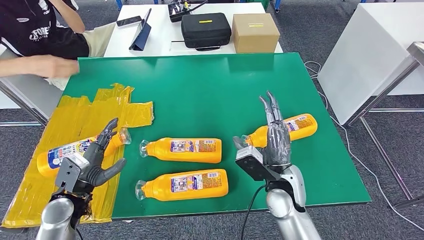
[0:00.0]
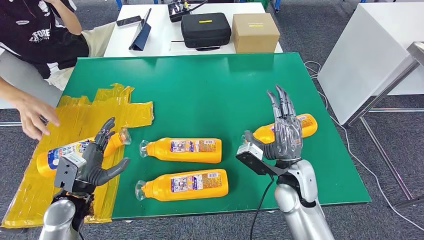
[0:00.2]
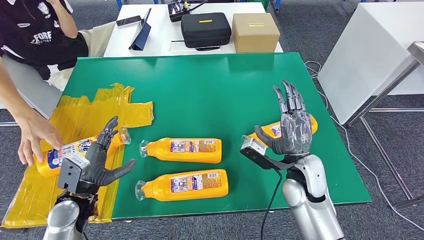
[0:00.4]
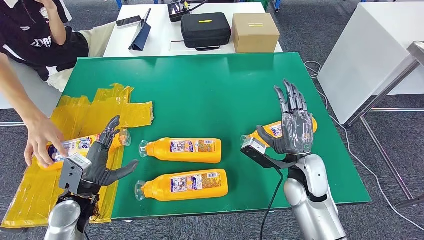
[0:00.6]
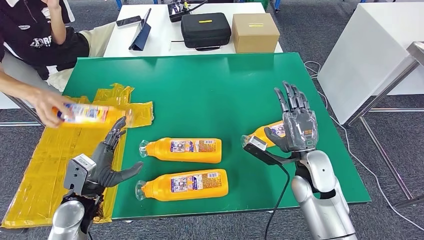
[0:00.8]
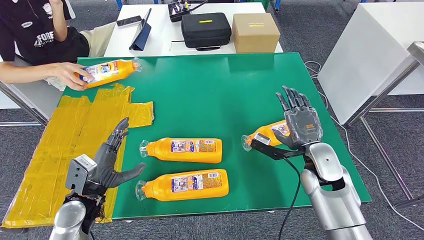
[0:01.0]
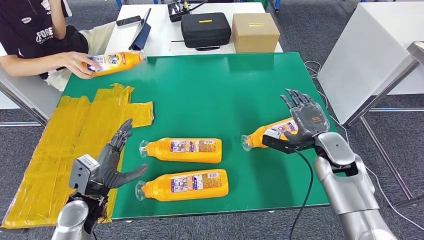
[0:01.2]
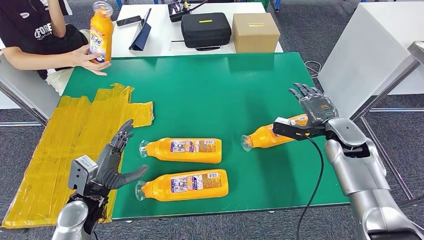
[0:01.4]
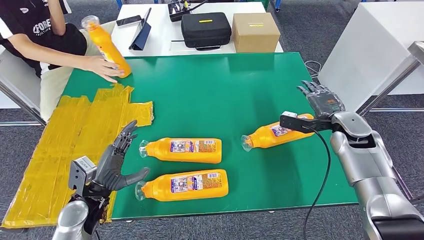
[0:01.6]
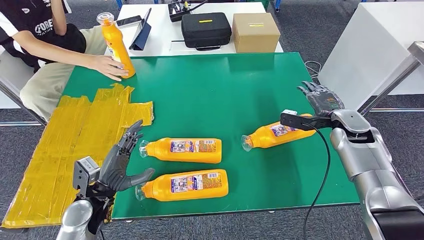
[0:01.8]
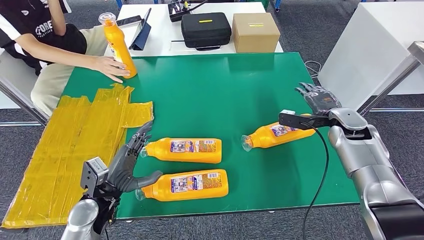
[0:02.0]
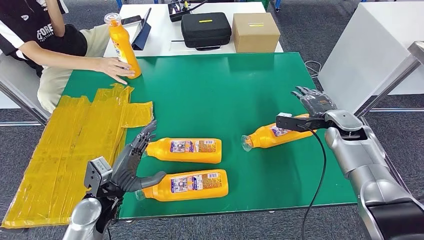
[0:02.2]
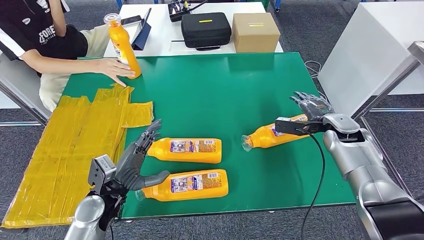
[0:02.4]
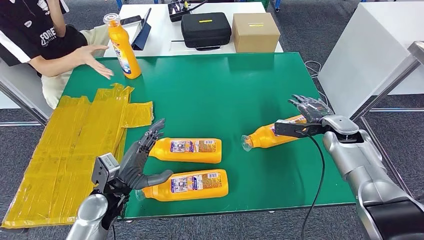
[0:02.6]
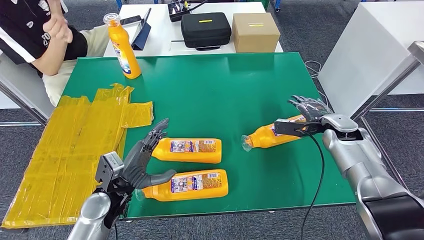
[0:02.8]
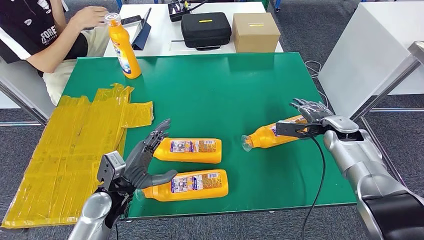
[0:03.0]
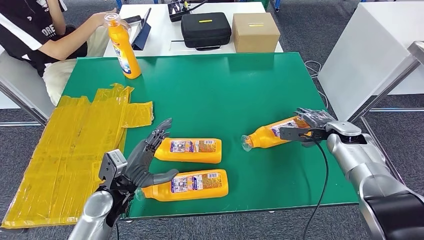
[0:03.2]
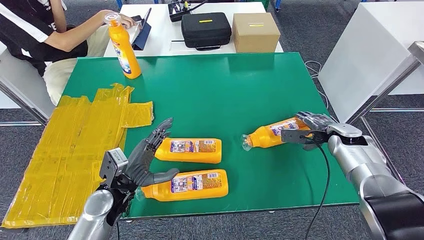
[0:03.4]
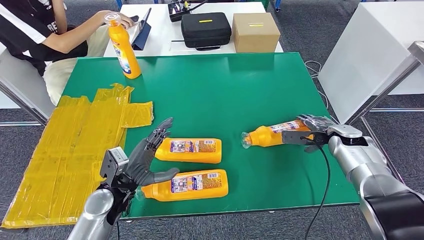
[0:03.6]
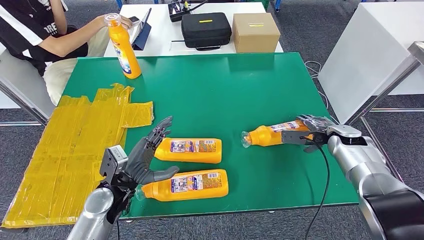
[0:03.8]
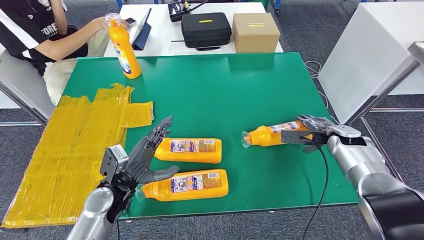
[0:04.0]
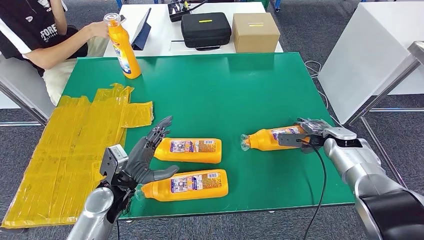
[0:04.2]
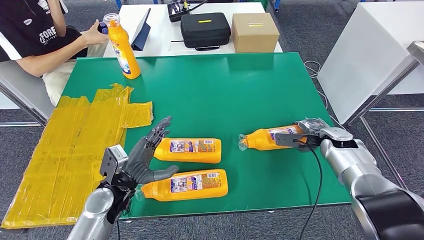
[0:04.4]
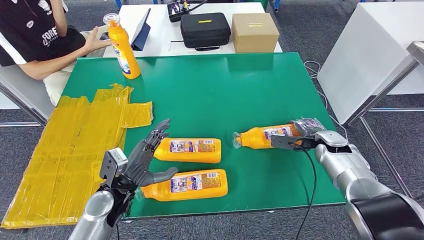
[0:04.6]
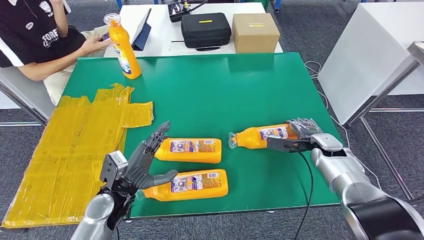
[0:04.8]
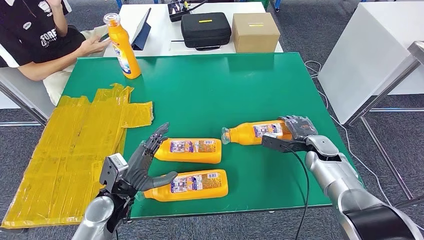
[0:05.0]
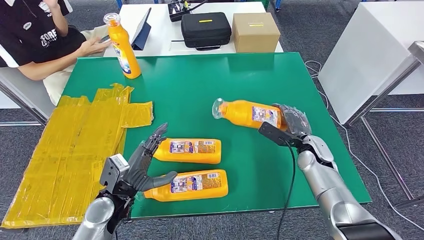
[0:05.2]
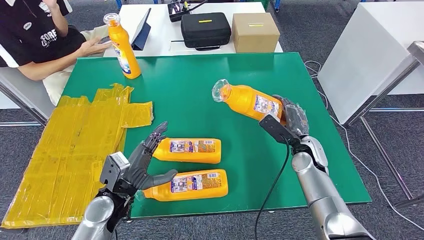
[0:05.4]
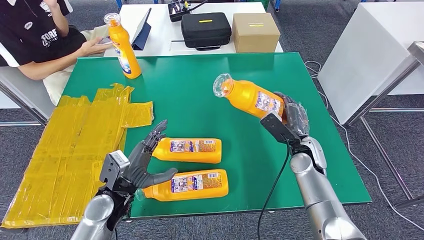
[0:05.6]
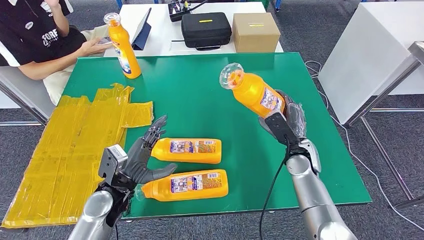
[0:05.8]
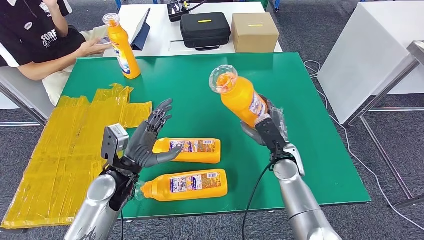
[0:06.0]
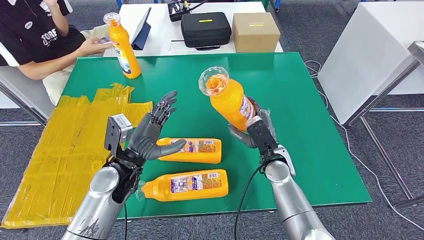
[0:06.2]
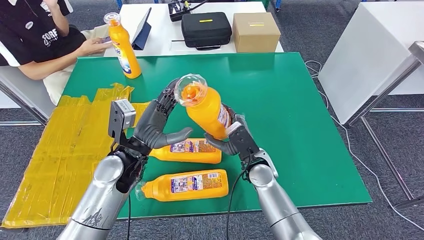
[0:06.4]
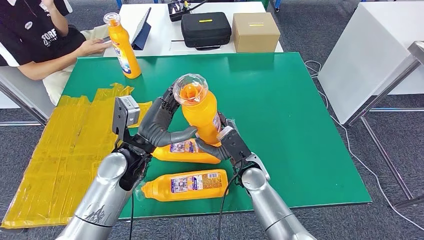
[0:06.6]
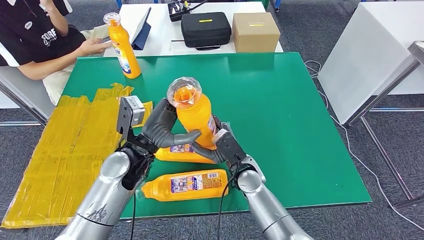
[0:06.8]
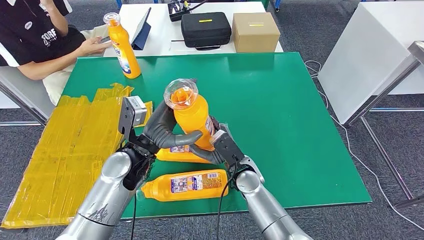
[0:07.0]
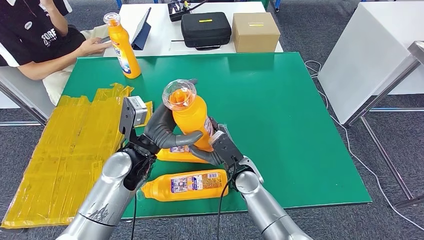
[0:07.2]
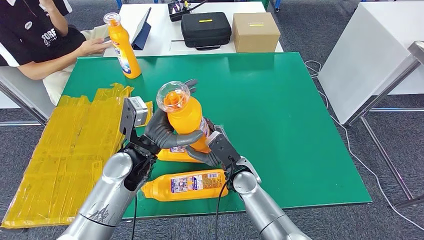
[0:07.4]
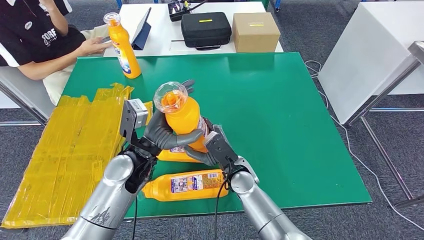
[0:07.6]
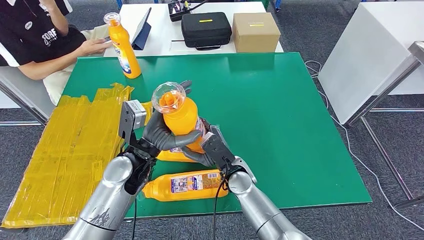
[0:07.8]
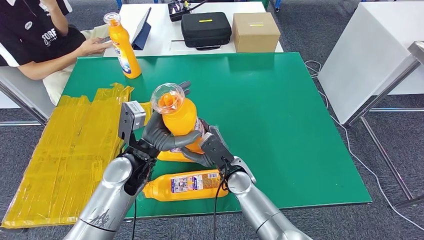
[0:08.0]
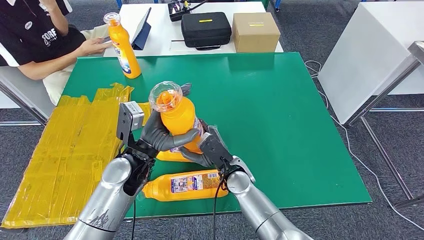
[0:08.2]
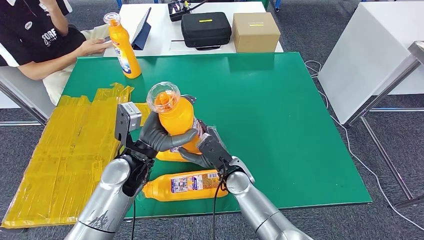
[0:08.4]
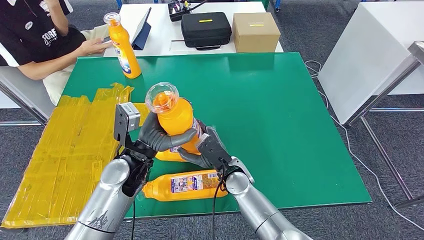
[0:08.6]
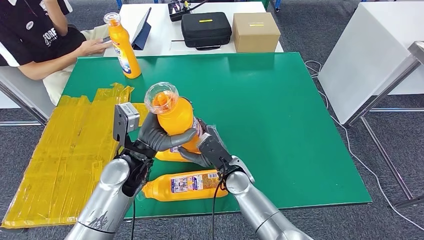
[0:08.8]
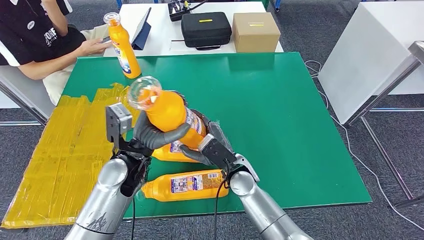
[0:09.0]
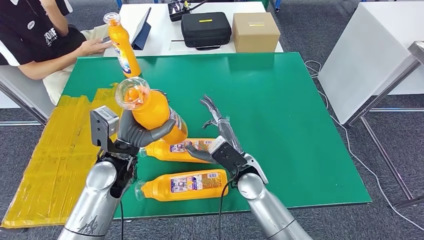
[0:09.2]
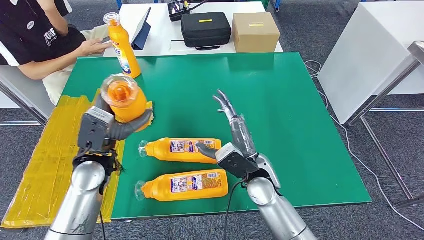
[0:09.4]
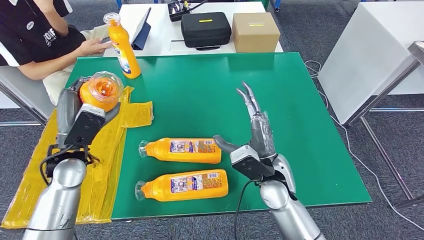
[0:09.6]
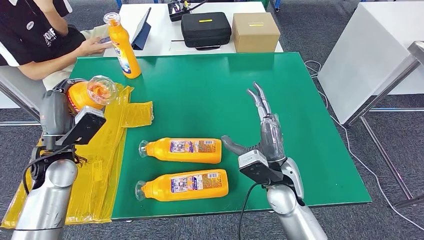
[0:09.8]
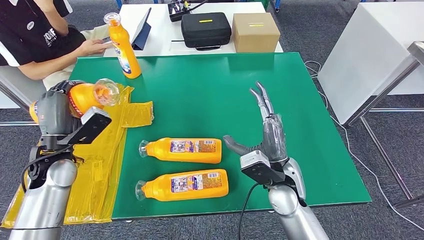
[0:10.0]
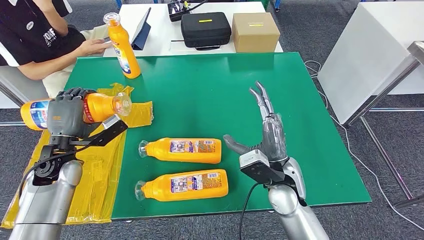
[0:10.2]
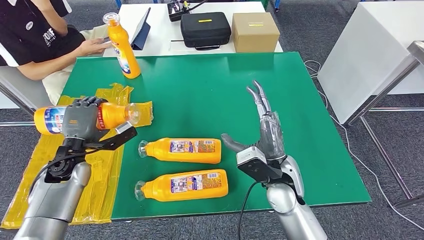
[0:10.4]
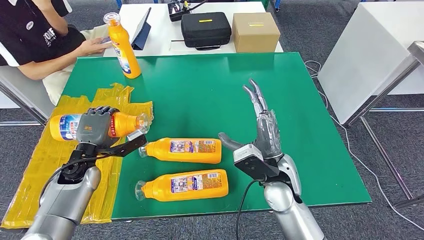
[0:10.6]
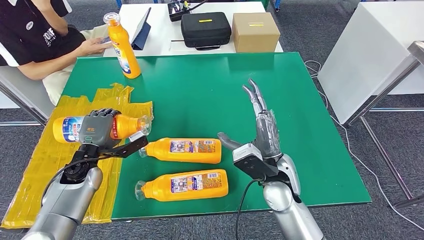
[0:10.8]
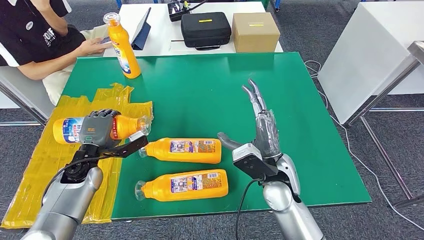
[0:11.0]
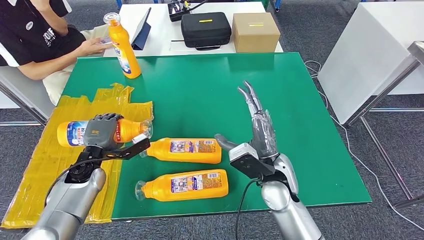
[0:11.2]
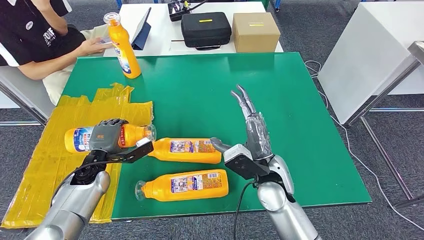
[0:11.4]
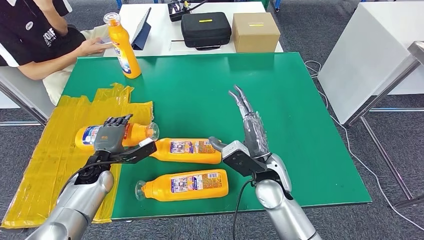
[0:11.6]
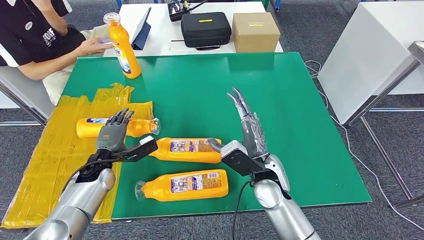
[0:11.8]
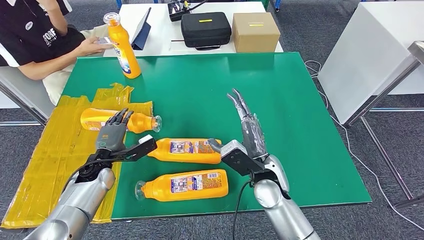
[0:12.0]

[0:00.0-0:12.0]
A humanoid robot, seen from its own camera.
Step, 0:04.6 to 0:07.6: Pick up the bottle from the table.
0:03.0 to 0:04.4: The hands move only a little.
0:07.6 to 0:09.0: There are only small adjustments of the hands.
0:10.4 to 0:12.0: The left hand goes about 5 cm downward.

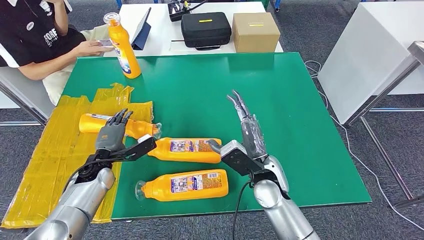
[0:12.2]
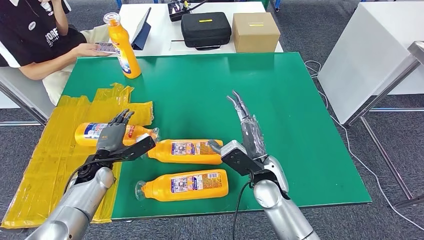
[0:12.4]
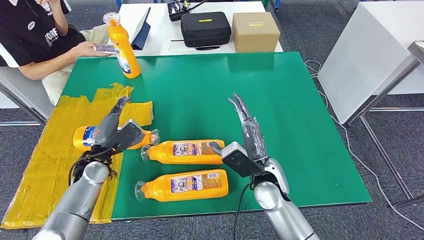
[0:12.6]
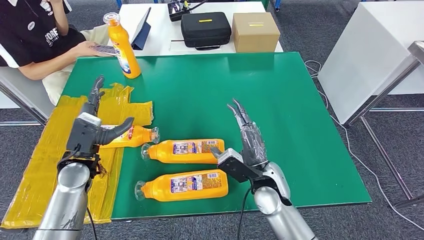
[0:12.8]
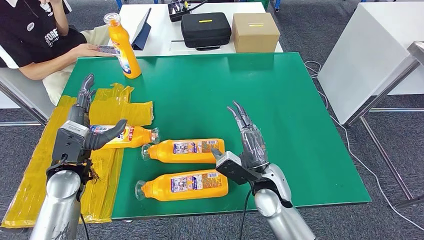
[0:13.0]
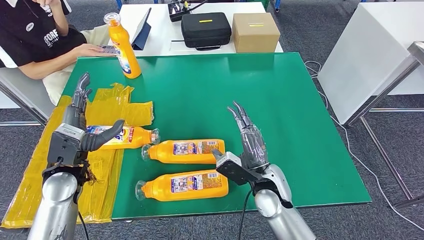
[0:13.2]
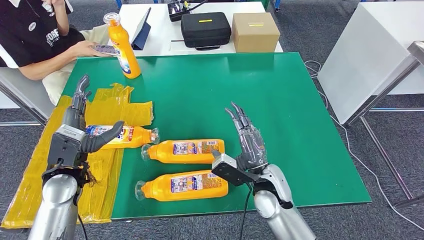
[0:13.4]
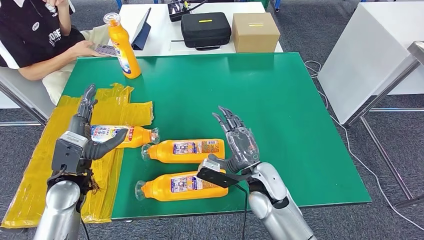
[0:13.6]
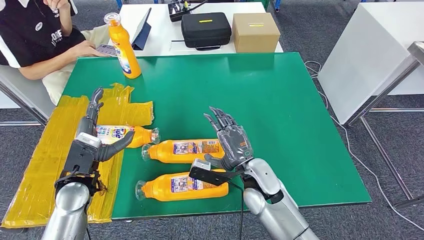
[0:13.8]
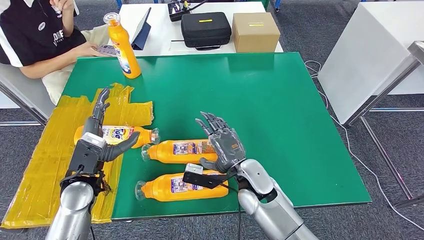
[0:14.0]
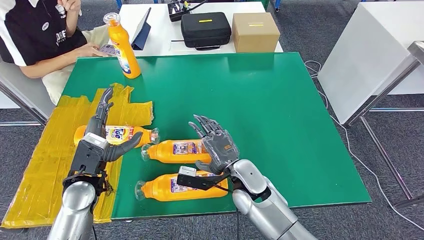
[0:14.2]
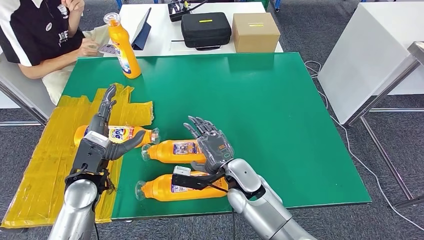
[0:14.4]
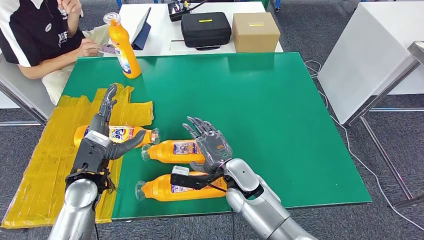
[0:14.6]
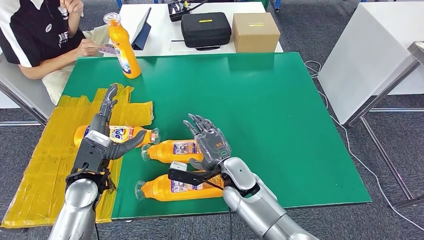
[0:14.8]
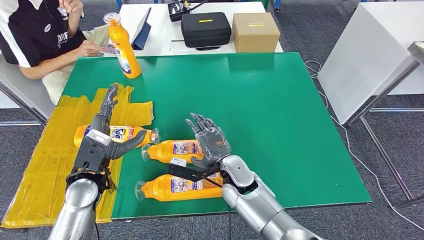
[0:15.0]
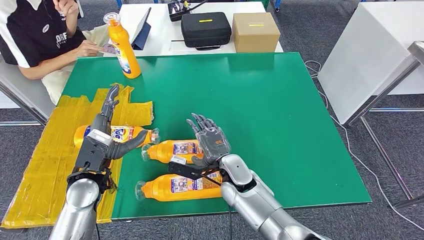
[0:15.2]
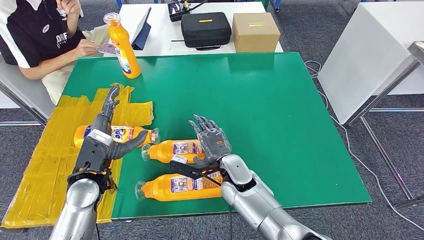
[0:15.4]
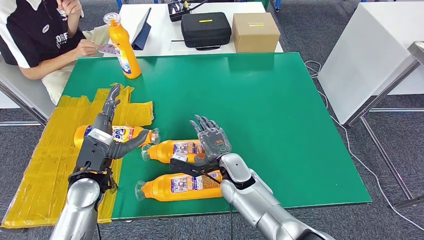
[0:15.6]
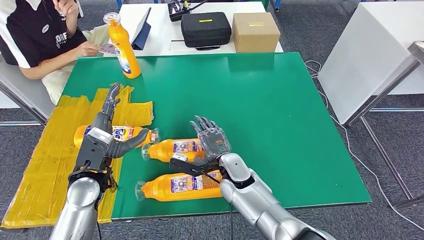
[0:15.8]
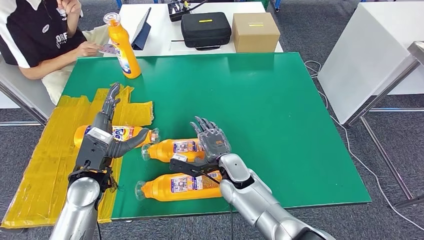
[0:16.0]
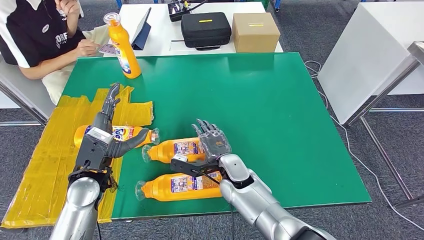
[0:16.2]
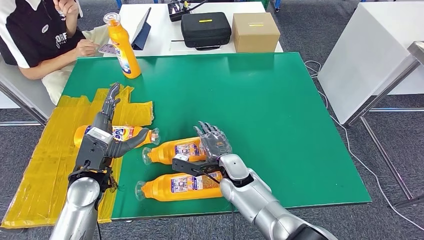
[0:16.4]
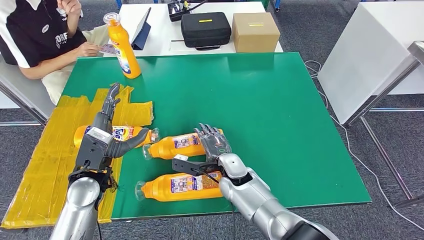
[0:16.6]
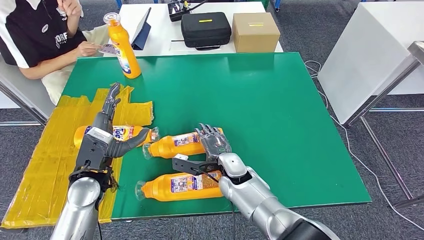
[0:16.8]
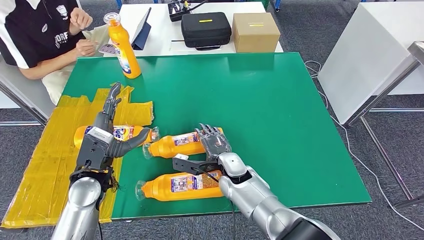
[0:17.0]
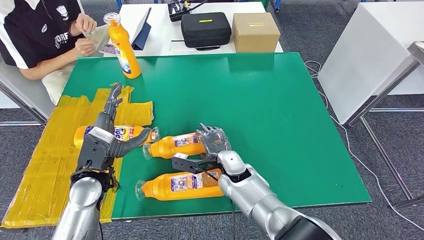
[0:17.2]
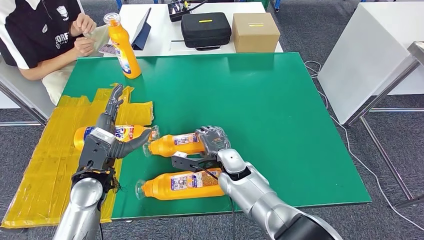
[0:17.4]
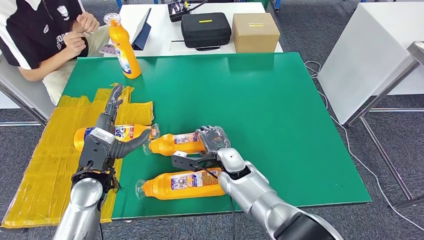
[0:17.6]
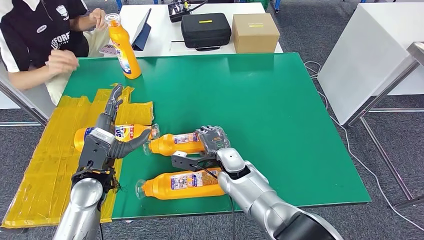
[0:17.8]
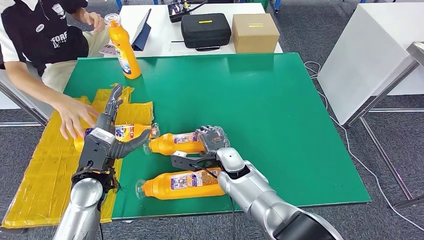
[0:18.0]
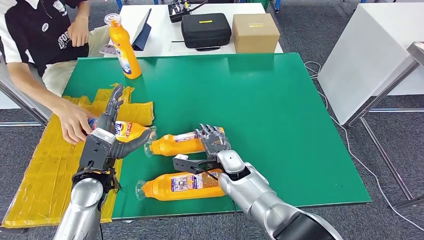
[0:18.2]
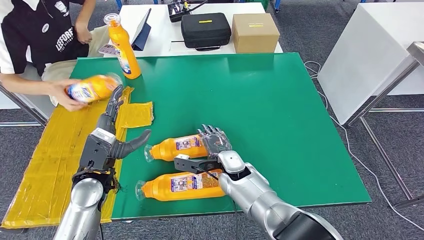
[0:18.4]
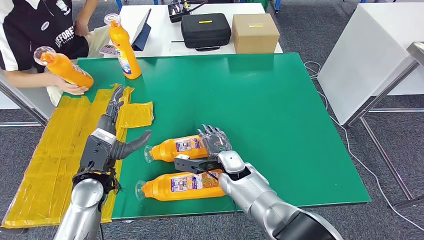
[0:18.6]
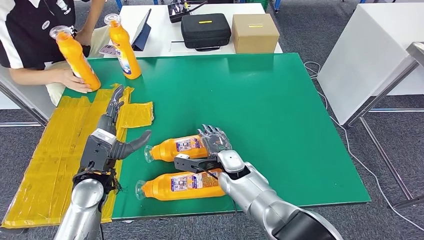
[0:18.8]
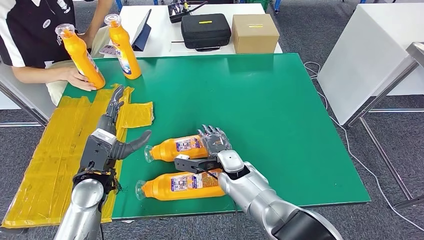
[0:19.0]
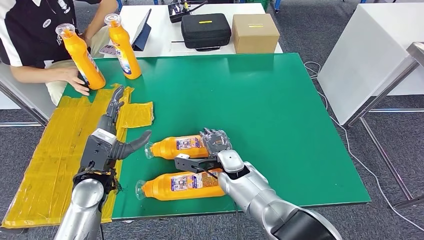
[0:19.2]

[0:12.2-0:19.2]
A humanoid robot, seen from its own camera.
0:12.2 to 0:13.6: The left hand goes some 10 cm upward and backward.
0:13.6 to 0:15.0: The right hand goes about 5 cm to the left.
0:15.0 to 0:16.4: The hands move only a little.
0:16.4 to 0:19.2: The hands move only a little.
